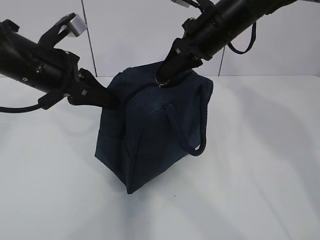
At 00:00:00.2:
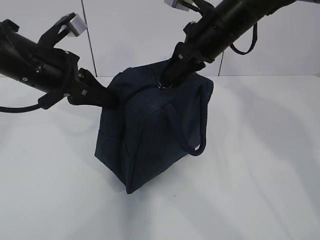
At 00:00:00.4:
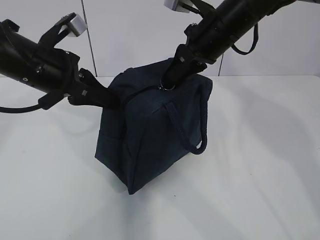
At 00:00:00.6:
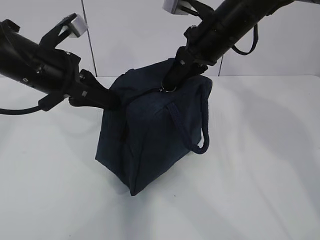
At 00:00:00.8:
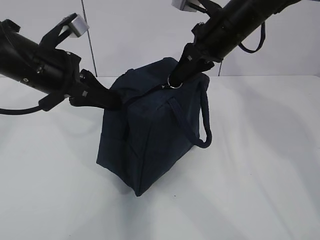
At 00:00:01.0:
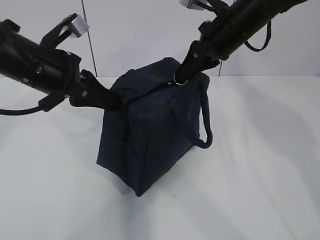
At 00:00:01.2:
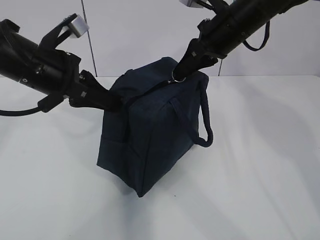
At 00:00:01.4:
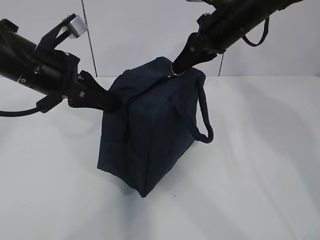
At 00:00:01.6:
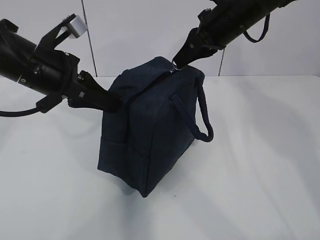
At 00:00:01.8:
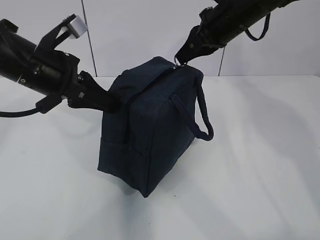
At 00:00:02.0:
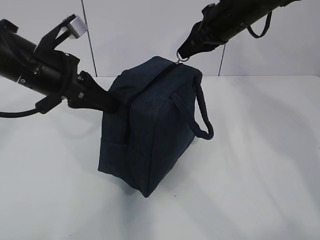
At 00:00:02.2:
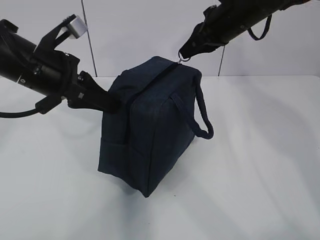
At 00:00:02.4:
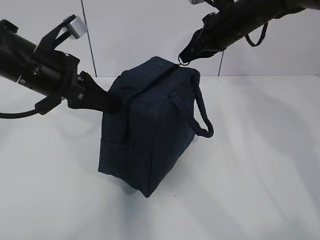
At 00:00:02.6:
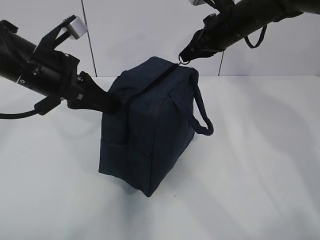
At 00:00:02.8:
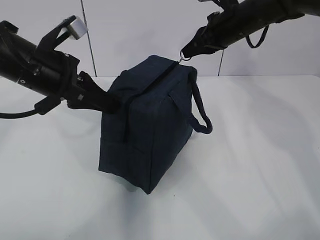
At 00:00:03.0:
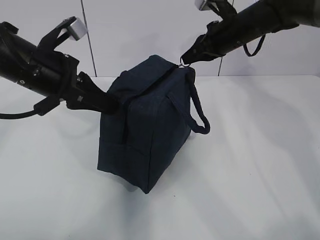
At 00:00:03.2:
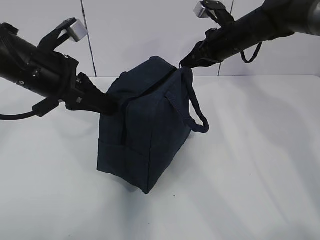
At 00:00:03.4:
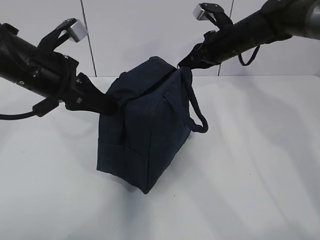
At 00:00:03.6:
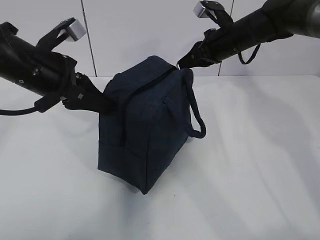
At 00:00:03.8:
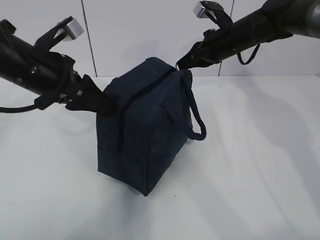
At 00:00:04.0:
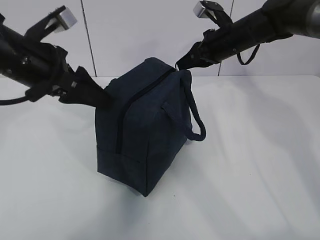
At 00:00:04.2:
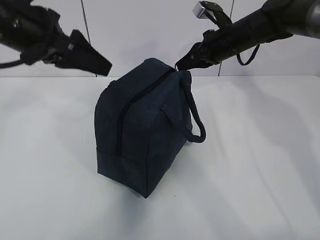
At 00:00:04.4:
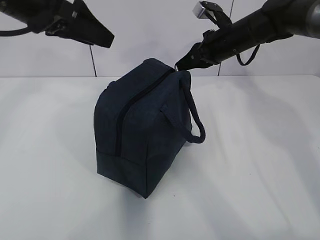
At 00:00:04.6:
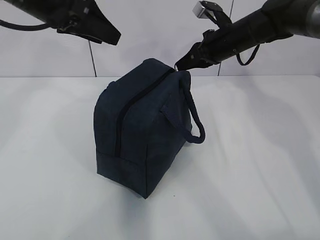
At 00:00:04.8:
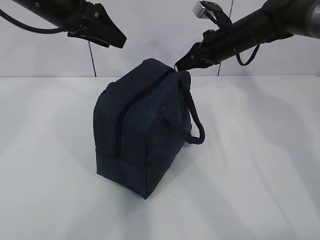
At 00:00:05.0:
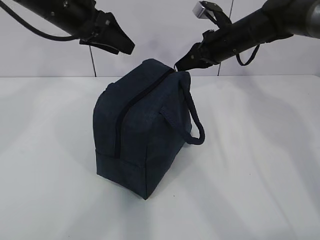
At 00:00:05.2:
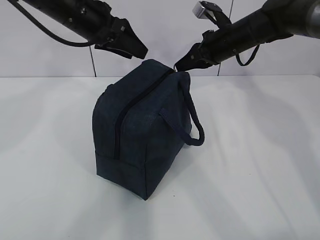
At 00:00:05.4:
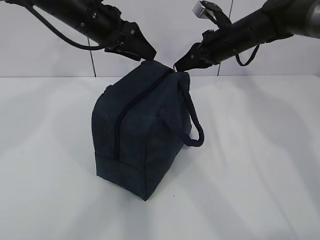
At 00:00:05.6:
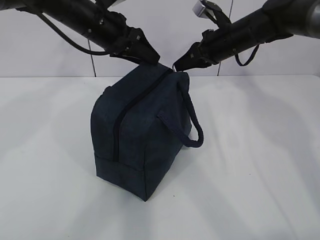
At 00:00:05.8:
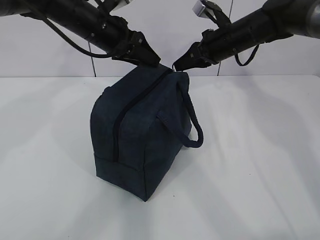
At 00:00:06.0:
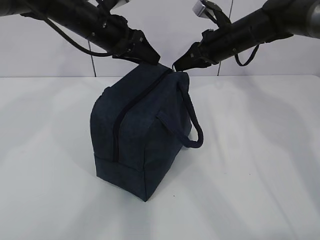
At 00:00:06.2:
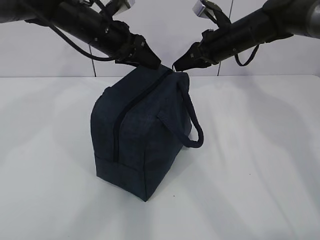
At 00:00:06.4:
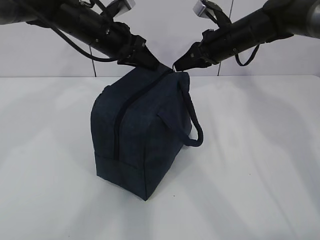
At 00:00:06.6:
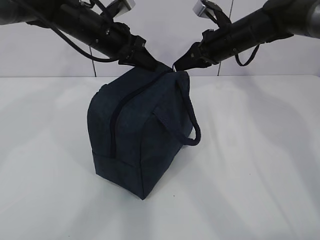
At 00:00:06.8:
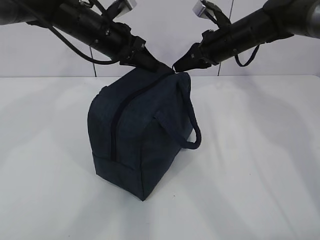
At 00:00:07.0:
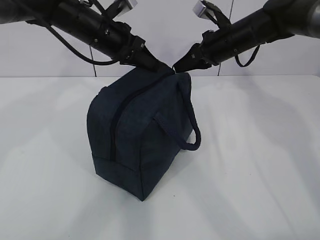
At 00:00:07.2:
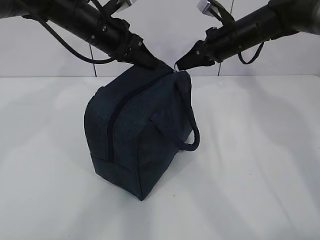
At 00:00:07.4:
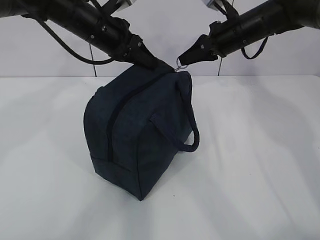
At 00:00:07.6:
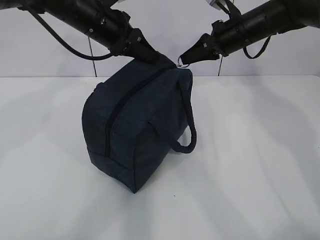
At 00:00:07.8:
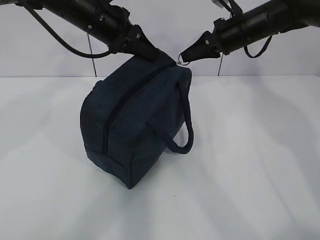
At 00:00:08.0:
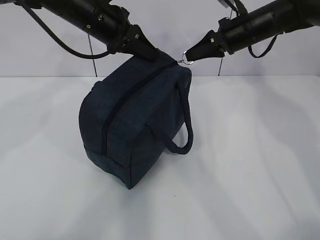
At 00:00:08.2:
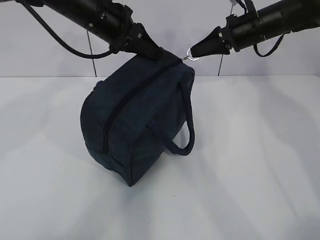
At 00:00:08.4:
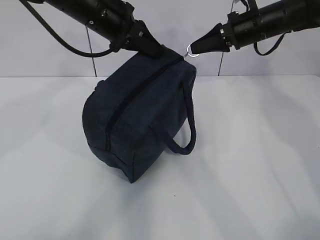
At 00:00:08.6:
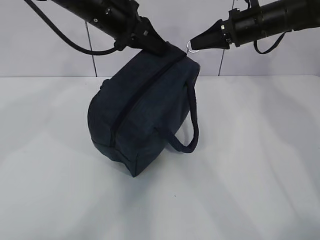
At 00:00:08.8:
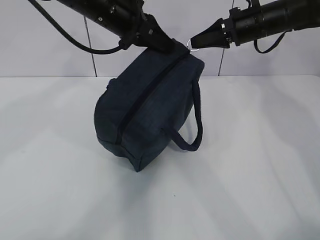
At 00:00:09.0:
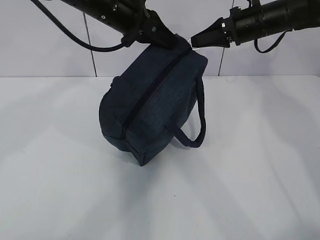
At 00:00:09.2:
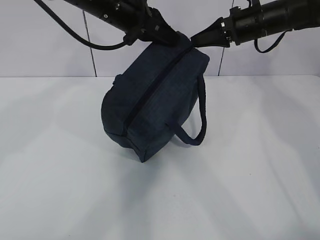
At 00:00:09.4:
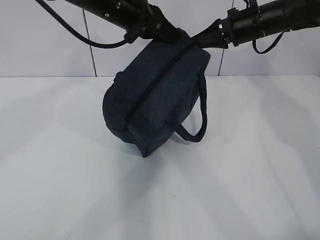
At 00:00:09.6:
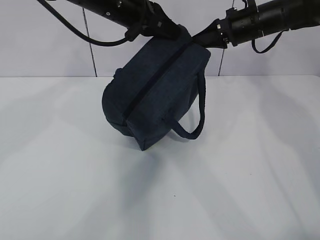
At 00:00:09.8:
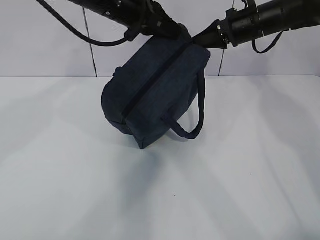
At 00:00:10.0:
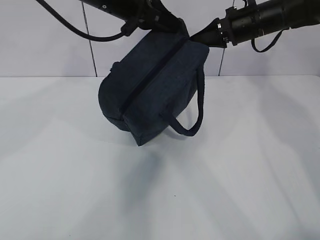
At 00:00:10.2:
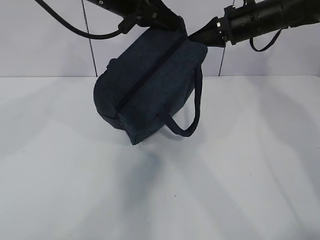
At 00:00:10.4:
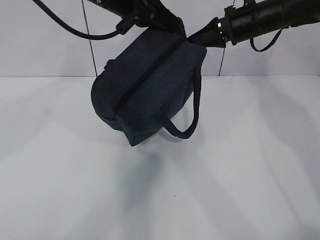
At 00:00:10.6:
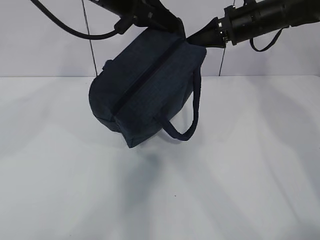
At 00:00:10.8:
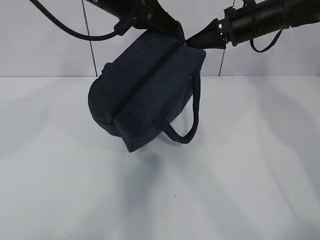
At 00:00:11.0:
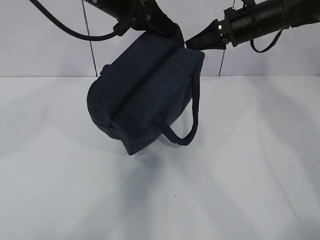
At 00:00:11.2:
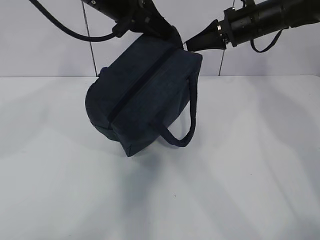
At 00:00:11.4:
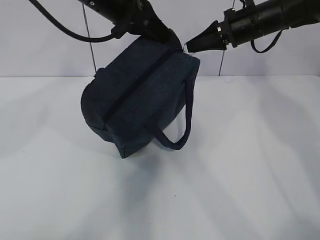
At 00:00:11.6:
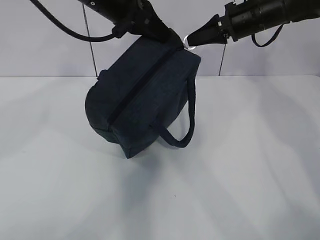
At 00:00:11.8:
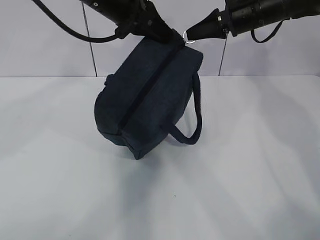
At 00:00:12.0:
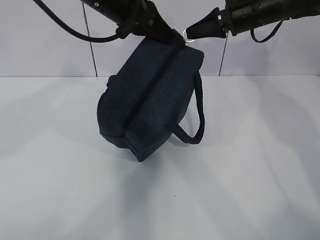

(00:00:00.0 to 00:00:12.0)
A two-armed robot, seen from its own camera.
Step, 00:00:00.0 - 00:00:00.6: Grab the lunch bag with your left hand.
00:00:00.0 - 00:00:01.6: There are only small adjustments of the grippers.
00:00:01.6 - 00:00:03.0: The right gripper heads forward and downward, covering about 10 cm.
00:00:03.0 - 00:00:04.4: The left gripper shifts approximately 10 cm upward, and opens.
00:00:04.4 - 00:00:06.0: The left gripper heads forward, downward and to the right, covering about 15 cm.
00:00:06.0 - 00:00:07.6: The left gripper closes.
00:00:07.6 - 00:00:09.0: The left gripper shifts by some 5 cm.
00:00:09.0 - 00:00:12.0: The grippers make only small movements.

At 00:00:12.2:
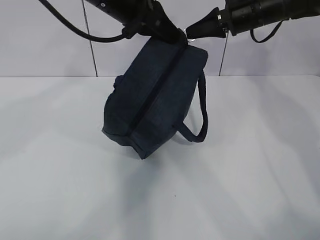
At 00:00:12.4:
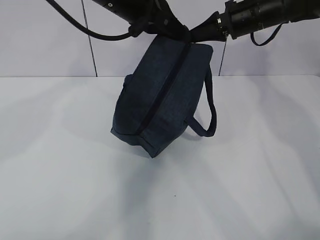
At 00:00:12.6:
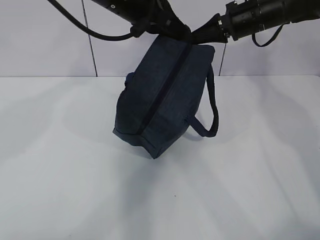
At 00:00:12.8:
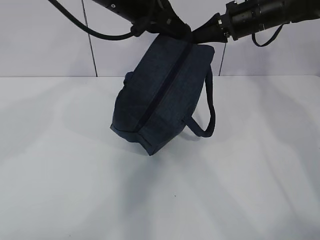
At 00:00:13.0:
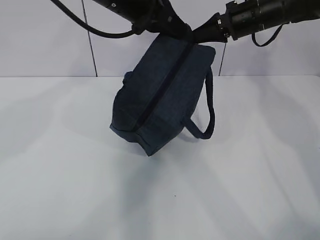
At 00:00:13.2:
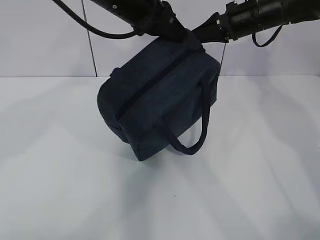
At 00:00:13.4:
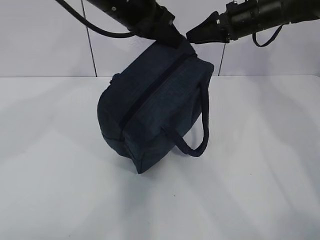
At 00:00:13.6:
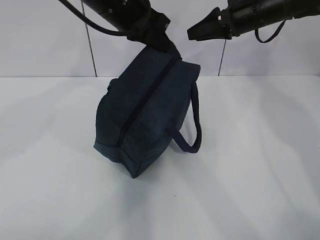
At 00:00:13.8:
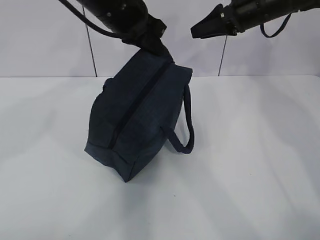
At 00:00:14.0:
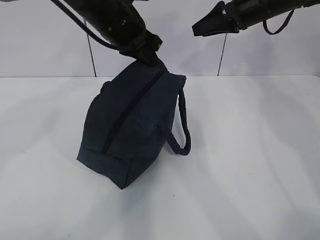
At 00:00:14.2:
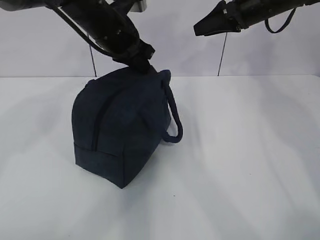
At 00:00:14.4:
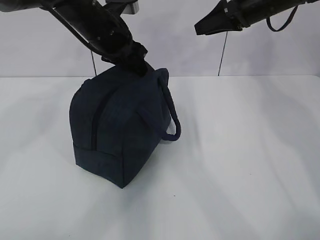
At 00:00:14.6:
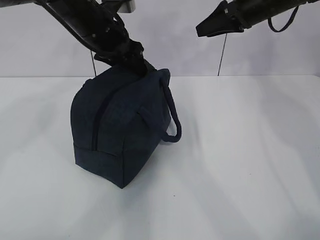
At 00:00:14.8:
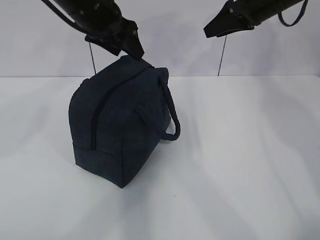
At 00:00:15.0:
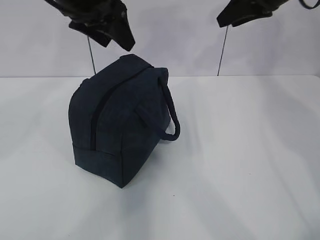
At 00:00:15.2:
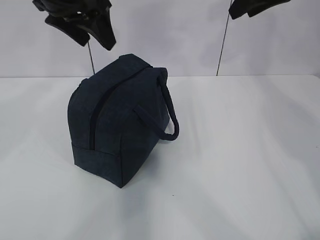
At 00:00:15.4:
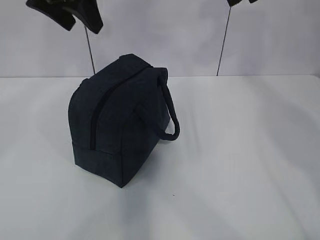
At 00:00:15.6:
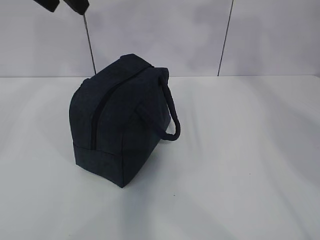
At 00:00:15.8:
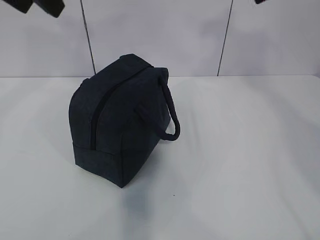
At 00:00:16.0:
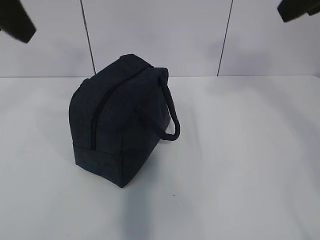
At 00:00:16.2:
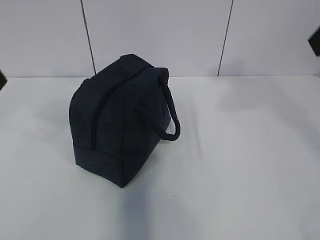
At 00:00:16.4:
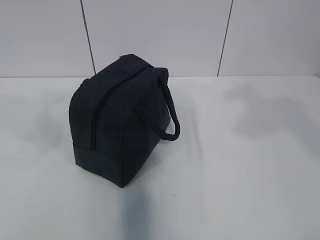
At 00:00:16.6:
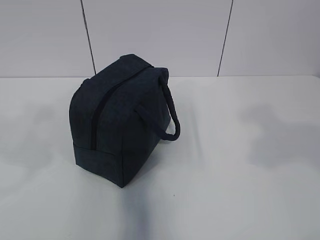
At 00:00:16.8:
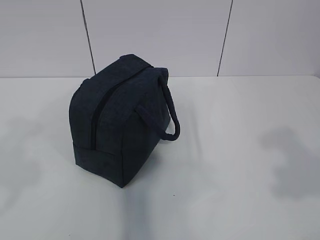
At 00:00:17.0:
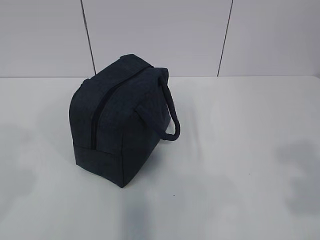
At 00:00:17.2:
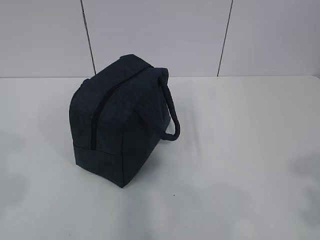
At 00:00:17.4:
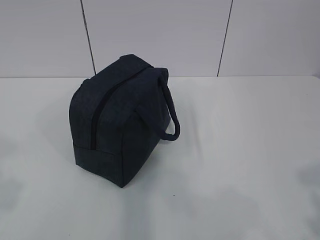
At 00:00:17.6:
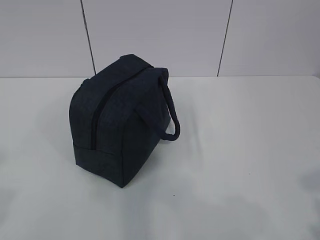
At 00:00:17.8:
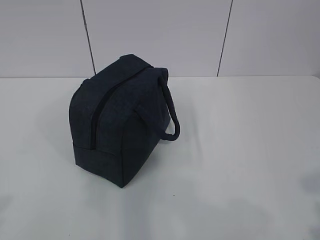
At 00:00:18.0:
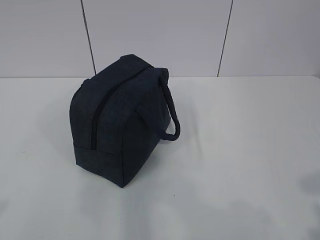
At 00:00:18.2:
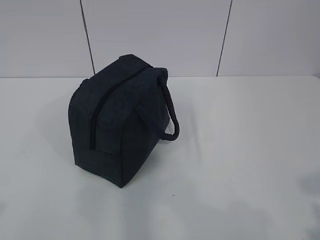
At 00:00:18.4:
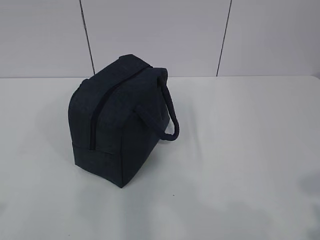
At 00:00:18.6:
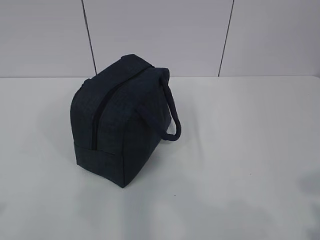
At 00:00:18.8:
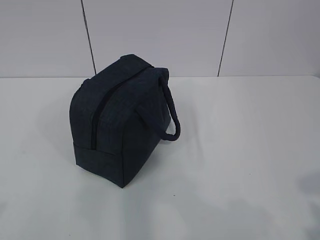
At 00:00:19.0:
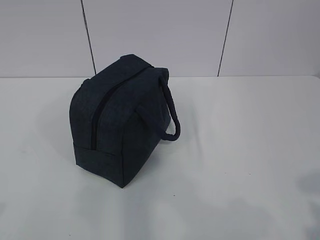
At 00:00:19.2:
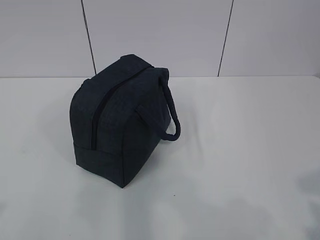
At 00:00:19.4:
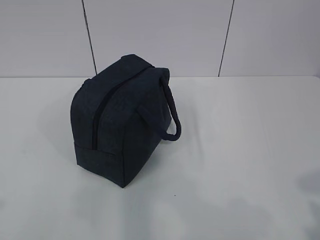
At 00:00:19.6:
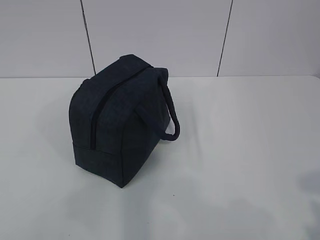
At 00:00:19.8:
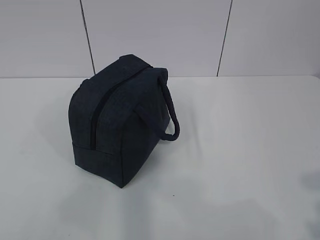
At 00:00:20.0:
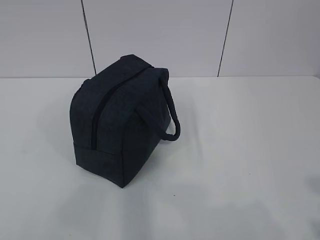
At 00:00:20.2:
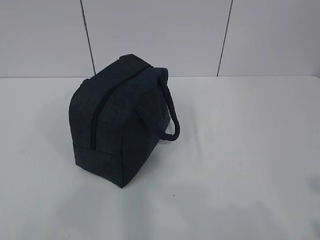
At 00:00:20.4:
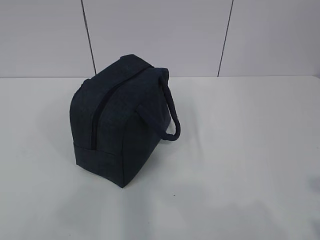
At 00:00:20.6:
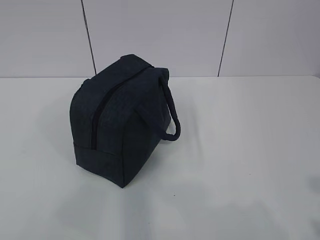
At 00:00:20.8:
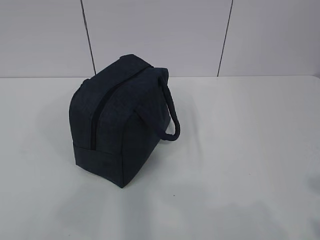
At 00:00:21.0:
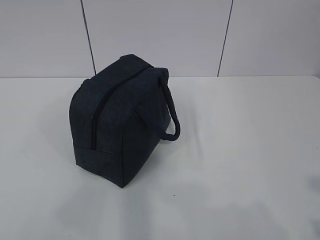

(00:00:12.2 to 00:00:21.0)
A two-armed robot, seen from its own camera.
00:00:12.2 - 00:00:13.6: The right gripper opens up.
00:00:13.6 - 00:00:15.2: The right gripper heads upward and backward, covering about 10 cm, while the left gripper shifts about 5 cm to the left, and opens.
00:00:15.2 - 00:00:16.6: The right gripper moves backward, roughly 30 cm, while the left gripper is displaced backward and to the left by approximately 25 cm.
00:00:16.6 - 00:00:18.0: The right gripper goes about 15 cm backward and downward. The left gripper shifts about 15 cm backward and to the left.
